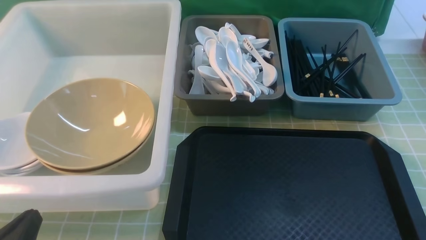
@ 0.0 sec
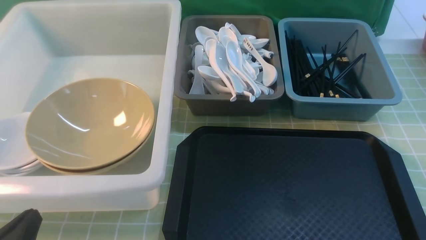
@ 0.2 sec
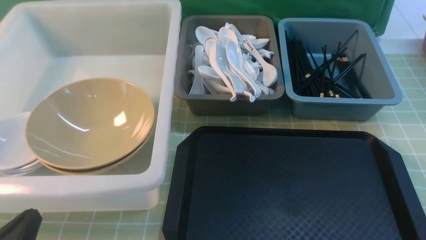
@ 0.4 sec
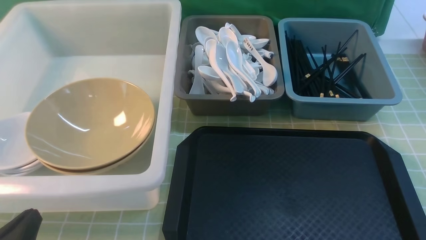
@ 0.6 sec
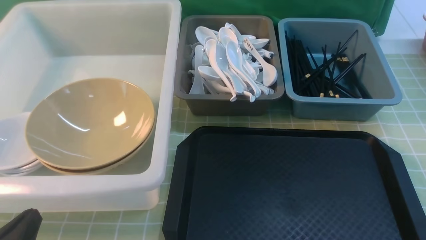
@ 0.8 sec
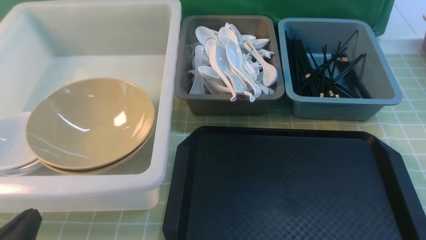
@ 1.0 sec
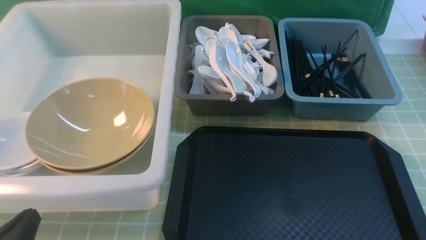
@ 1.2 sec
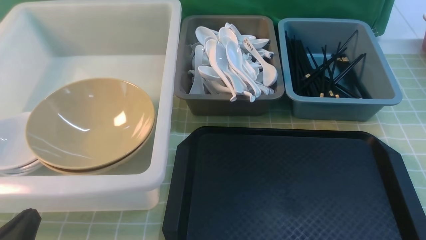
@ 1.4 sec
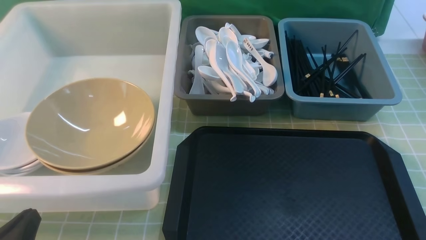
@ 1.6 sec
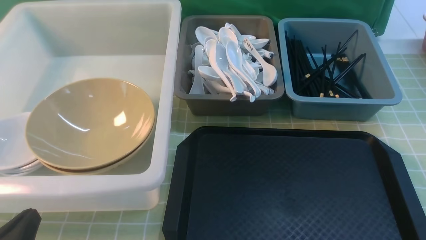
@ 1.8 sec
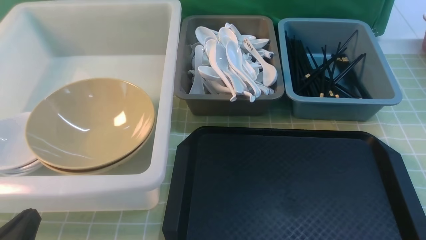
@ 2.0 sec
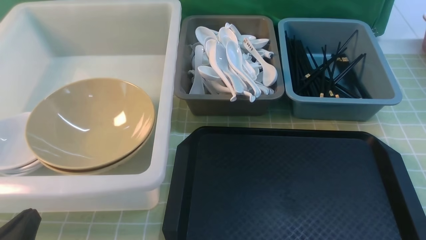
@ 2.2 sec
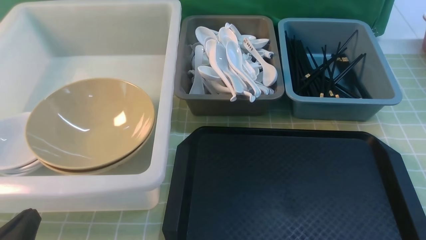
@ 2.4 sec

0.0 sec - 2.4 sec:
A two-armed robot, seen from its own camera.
Task of the whole recording: on green table put chopsticks spoon bowls plates into blue grey white boxes.
0.0 sec - 2.4 sec: Neither gripper changes place.
